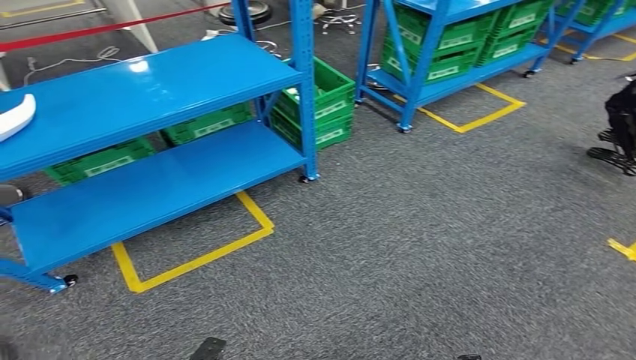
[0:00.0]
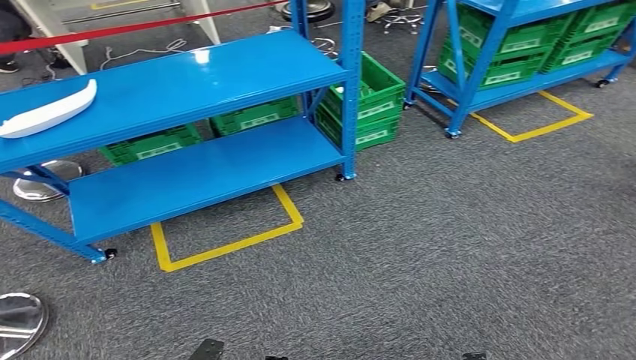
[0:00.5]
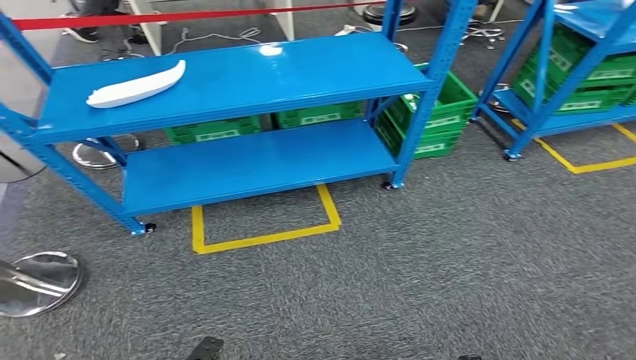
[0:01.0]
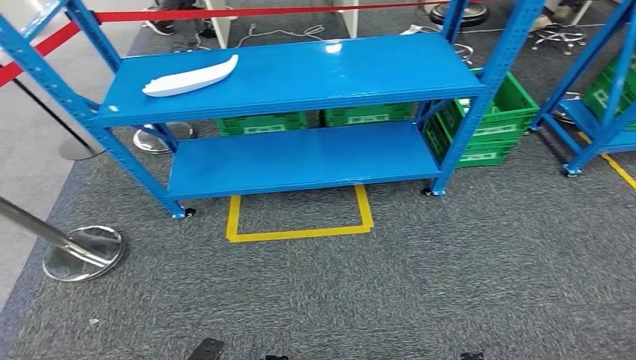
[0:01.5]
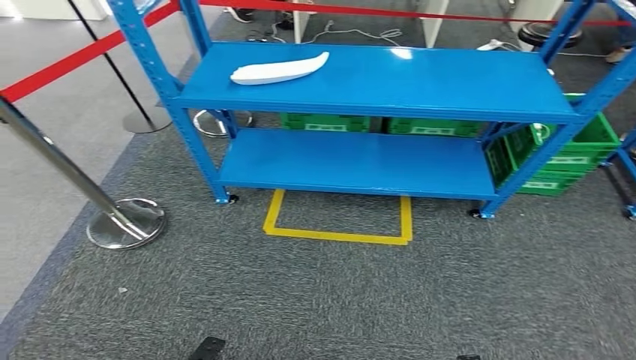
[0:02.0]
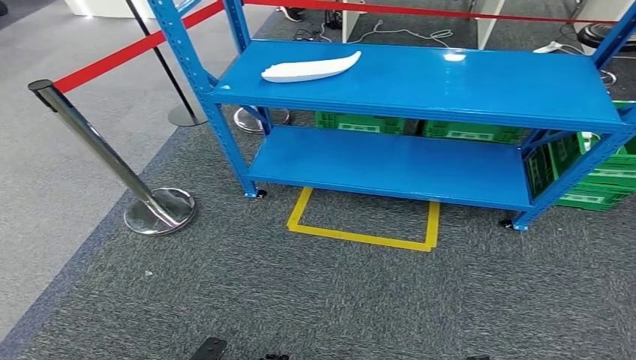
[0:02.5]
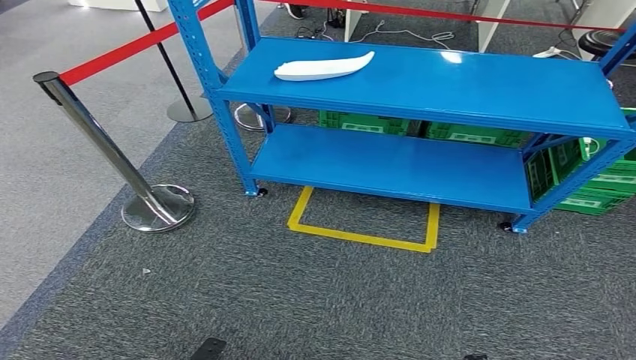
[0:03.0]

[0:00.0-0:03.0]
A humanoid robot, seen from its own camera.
Step, 0:00.0 to 0:03.0: Return to the initial position at the workbench.
